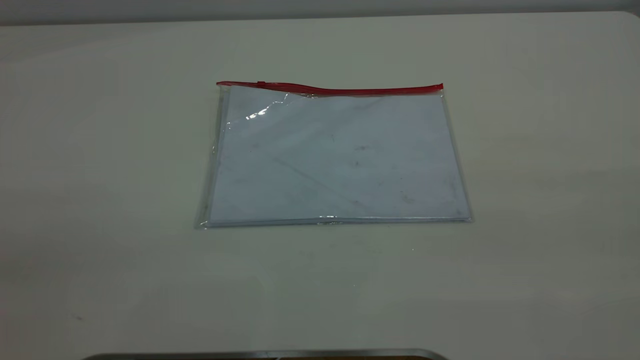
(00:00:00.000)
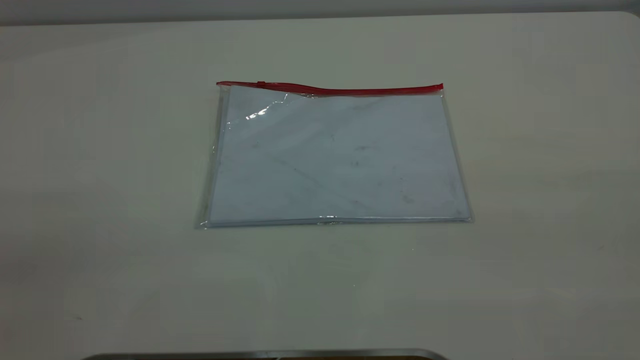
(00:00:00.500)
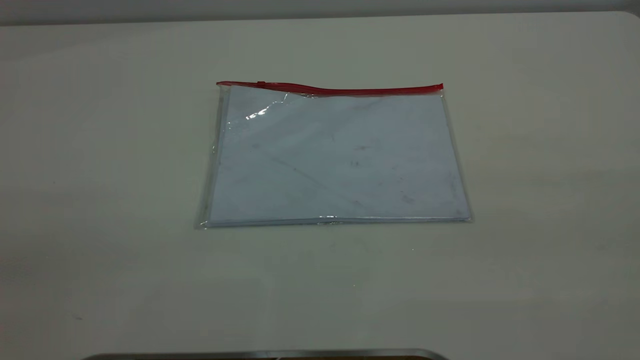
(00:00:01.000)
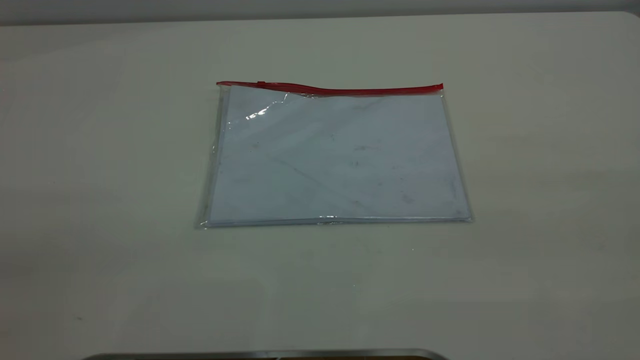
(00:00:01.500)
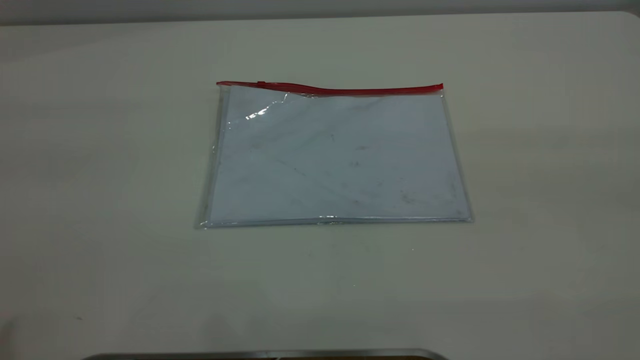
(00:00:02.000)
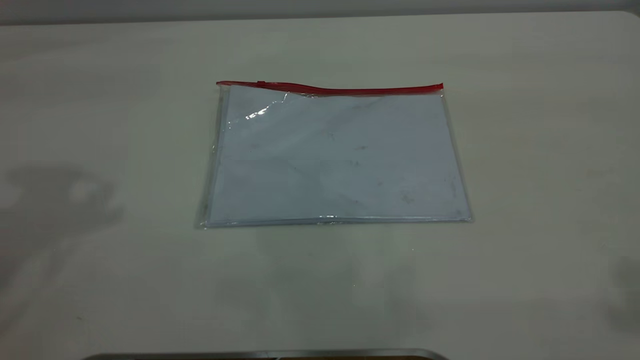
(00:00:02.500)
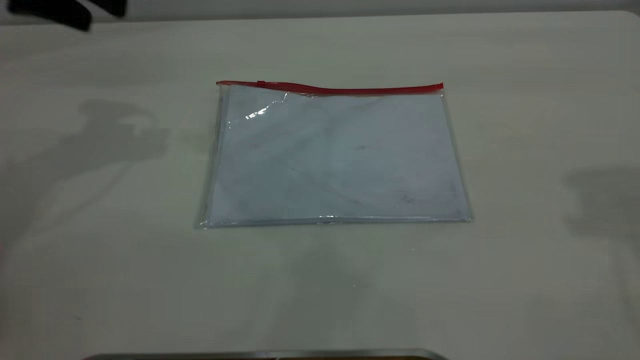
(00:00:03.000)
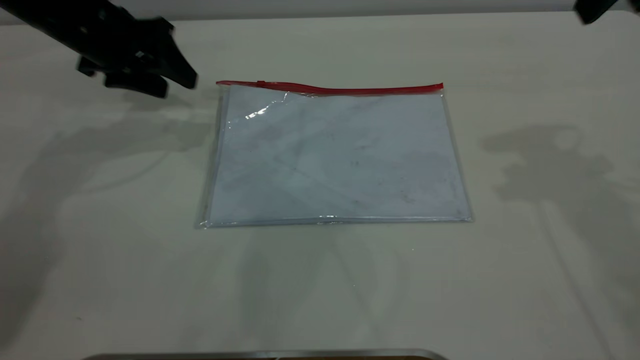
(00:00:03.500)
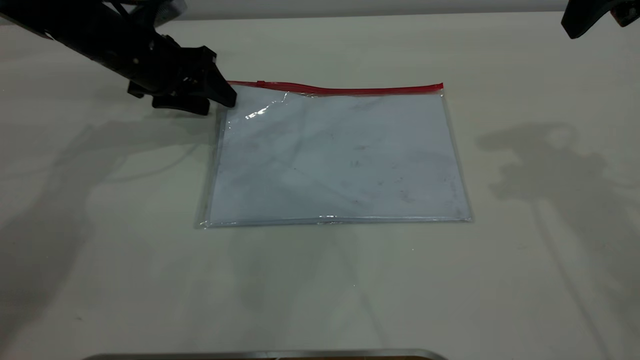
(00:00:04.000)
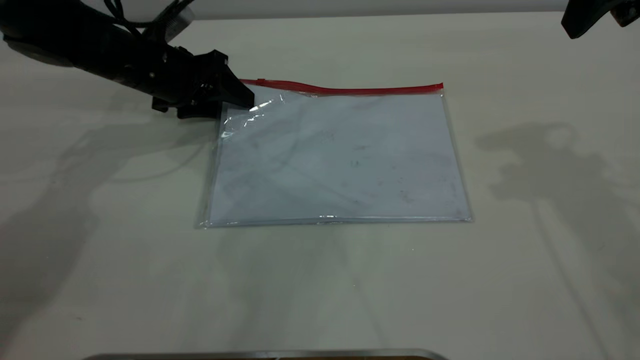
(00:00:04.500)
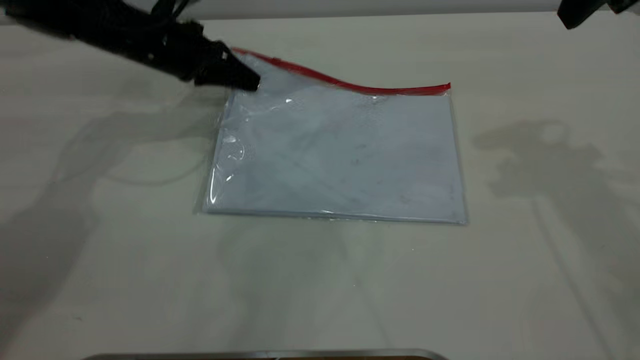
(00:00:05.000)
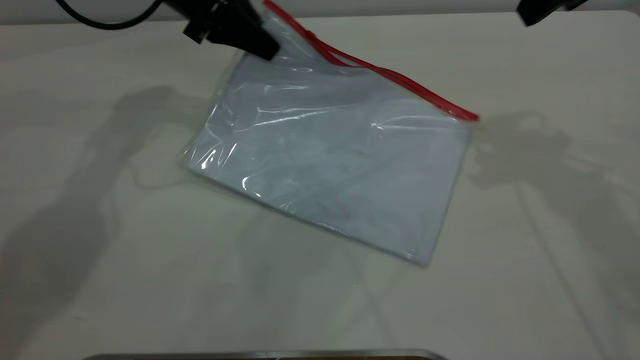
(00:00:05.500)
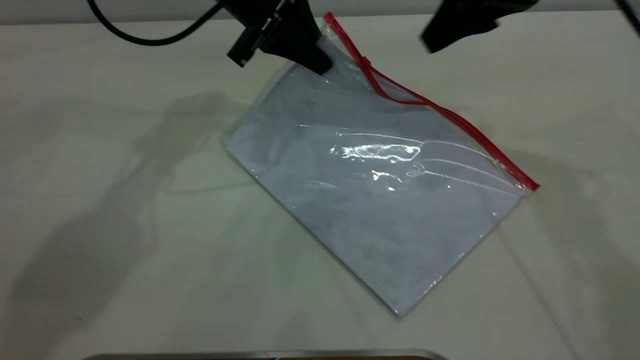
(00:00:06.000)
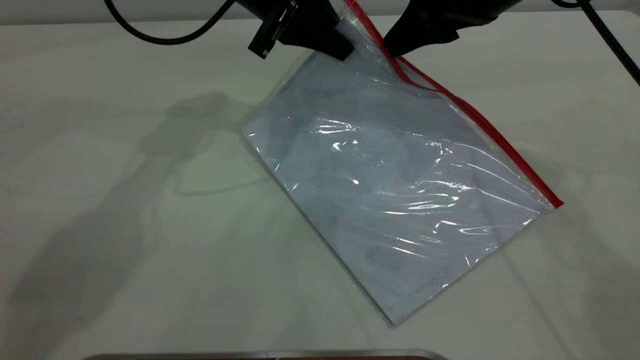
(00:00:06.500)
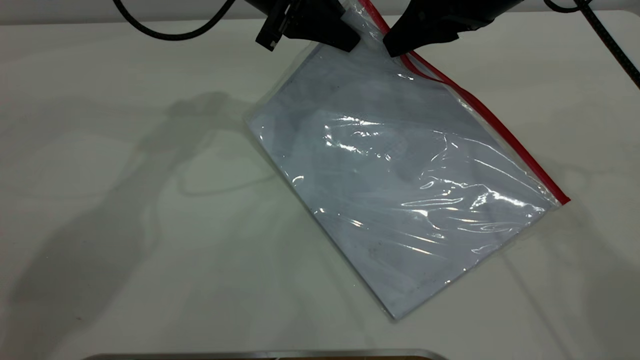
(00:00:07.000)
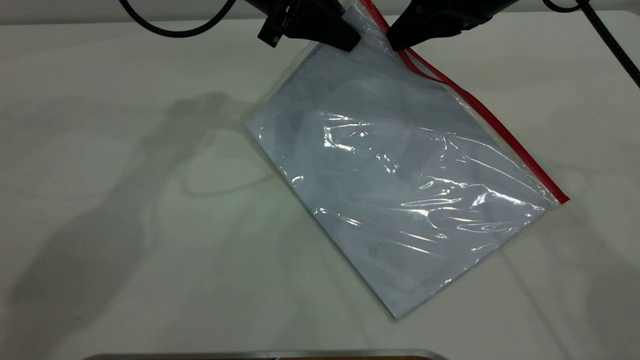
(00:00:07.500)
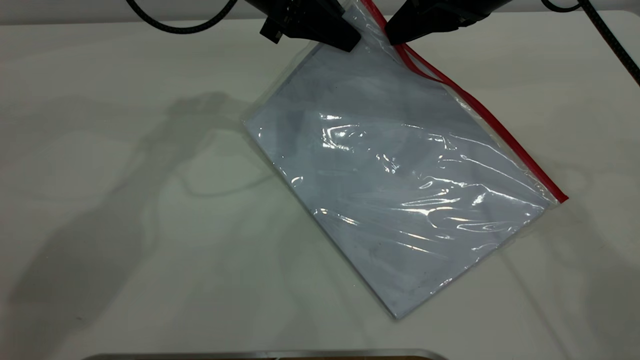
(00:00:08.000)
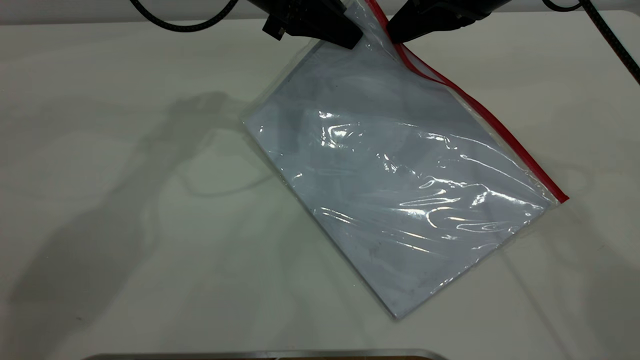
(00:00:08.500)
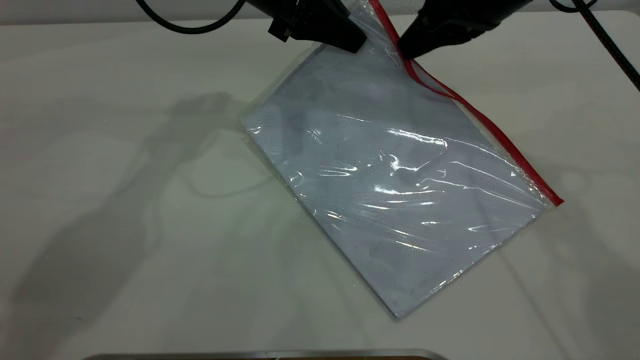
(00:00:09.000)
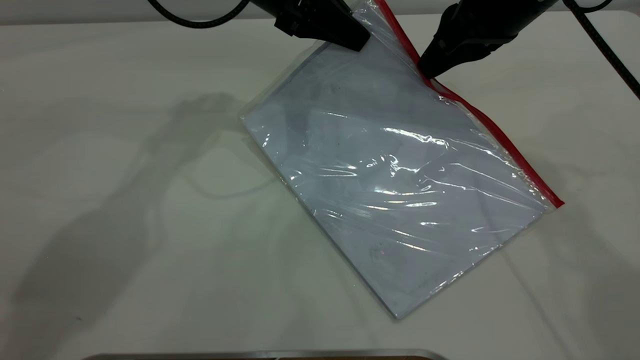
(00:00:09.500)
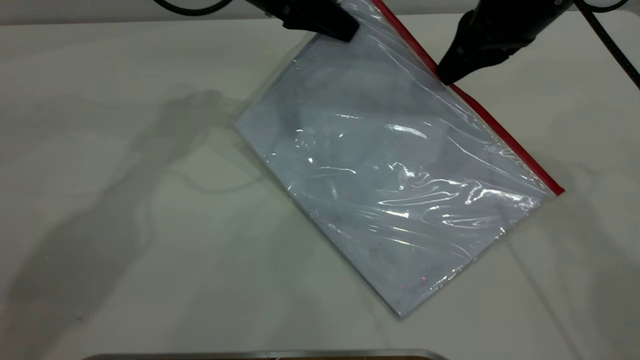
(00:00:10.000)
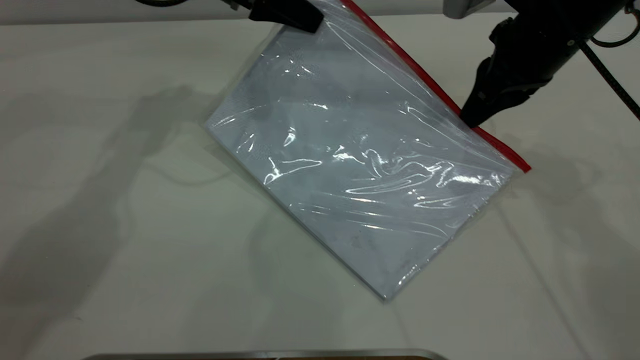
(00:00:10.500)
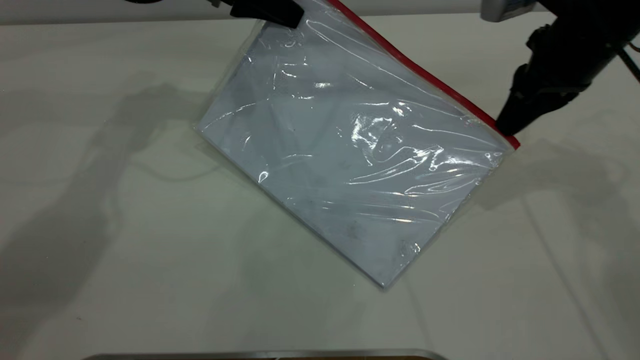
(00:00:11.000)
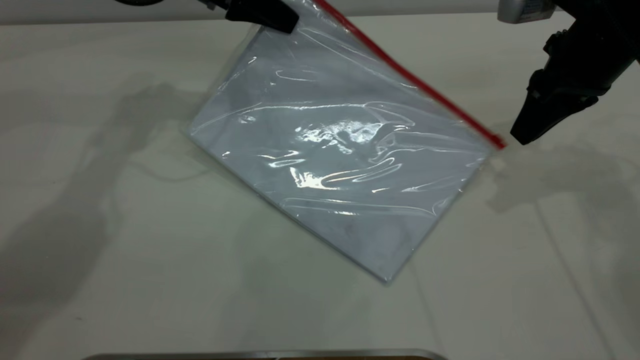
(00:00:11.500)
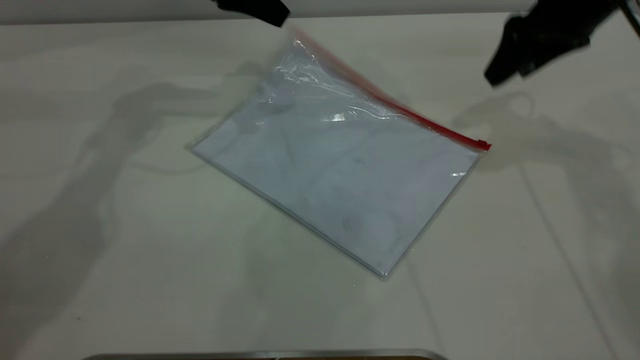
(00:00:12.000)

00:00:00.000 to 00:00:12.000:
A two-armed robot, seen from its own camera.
Step, 00:00:00.000 to 00:00:05.000: Pick up the transparent plastic bag with the left gripper.
Step, 00:00:05.500 to 00:00:11.500: Pulling up the zipper on the transparent plastic bag with the right gripper to close it.
00:00:02.000 to 00:00:04.000: The two grippers go about 40 cm forward and downward.
00:00:04.000 to 00:00:06.000: The right gripper goes some 10 cm to the left and downward, while the left gripper shifts roughly 15 cm to the right and upward, and closes.
00:00:06.000 to 00:00:08.000: The right gripper closes its fingers.
00:00:08.000 to 00:00:10.000: The grippers stay close to where they were, moving slightly.
00:00:10.000 to 00:00:12.000: The right gripper is displaced to the right by approximately 5 cm, and opens its fingers. The left gripper heads to the left, covering about 5 cm, and opens its fingers.
